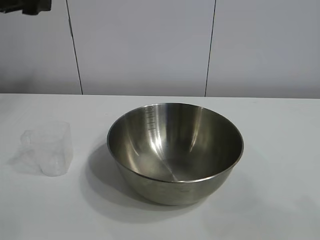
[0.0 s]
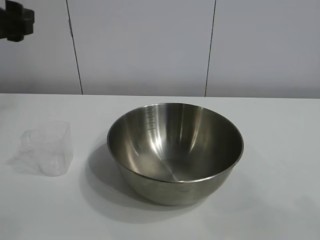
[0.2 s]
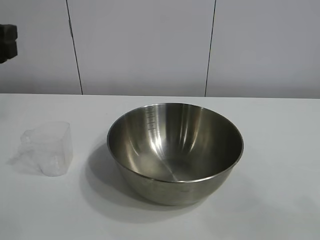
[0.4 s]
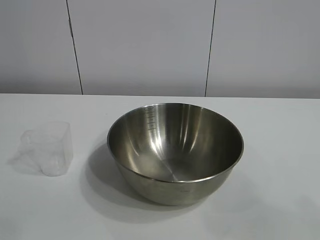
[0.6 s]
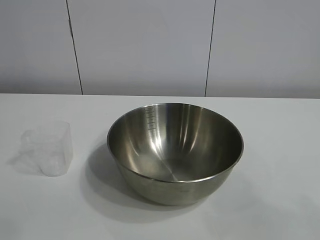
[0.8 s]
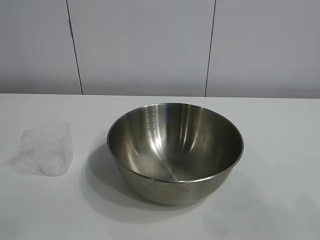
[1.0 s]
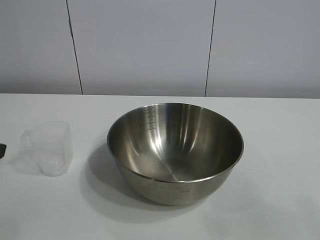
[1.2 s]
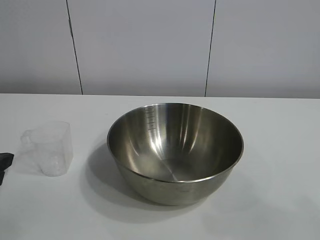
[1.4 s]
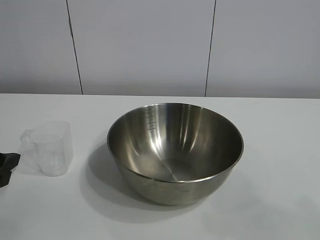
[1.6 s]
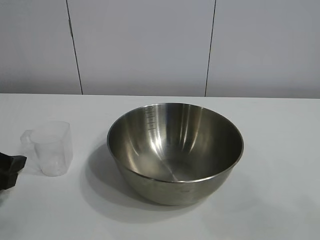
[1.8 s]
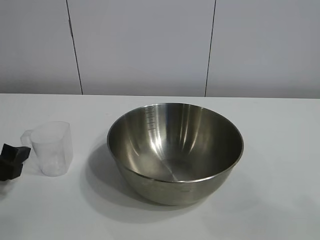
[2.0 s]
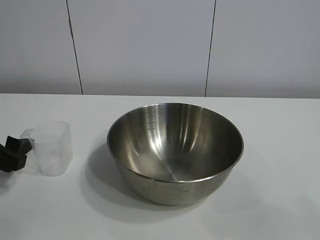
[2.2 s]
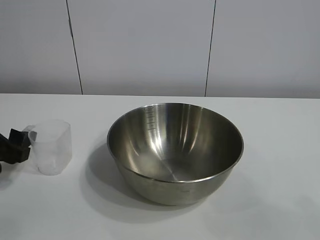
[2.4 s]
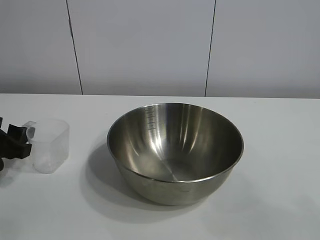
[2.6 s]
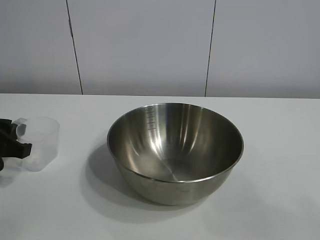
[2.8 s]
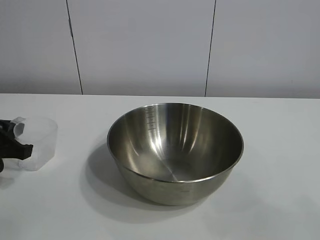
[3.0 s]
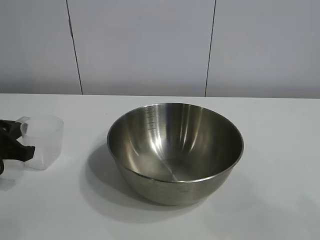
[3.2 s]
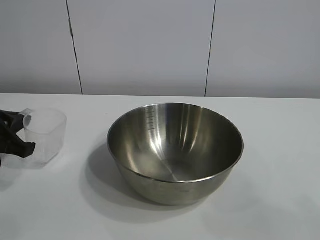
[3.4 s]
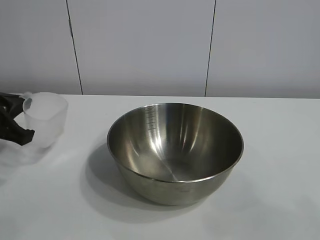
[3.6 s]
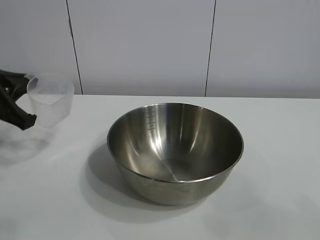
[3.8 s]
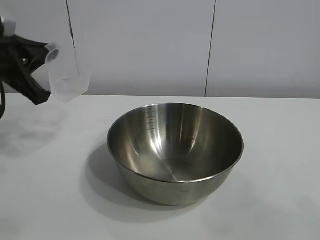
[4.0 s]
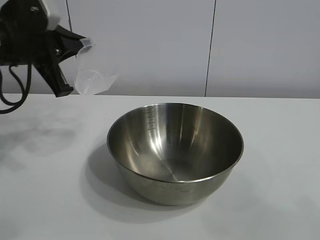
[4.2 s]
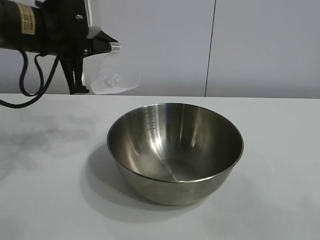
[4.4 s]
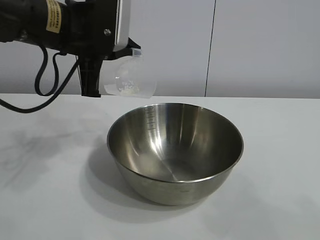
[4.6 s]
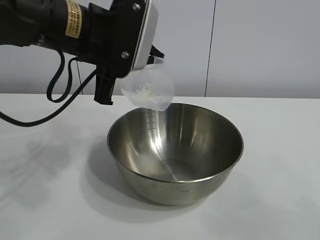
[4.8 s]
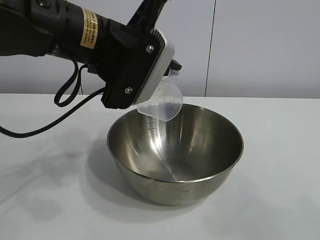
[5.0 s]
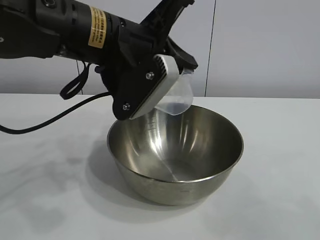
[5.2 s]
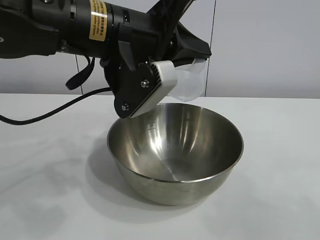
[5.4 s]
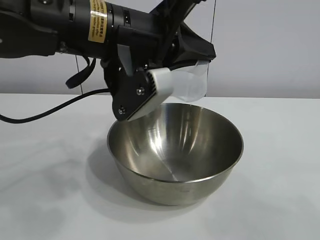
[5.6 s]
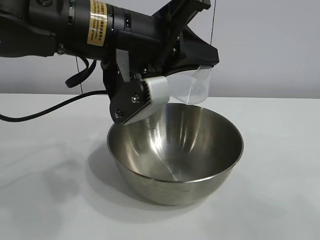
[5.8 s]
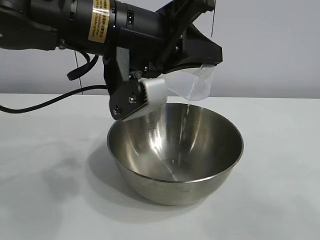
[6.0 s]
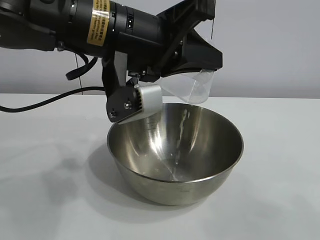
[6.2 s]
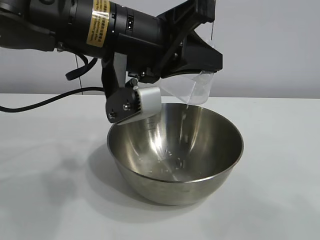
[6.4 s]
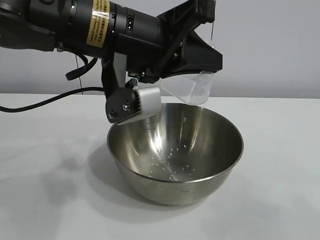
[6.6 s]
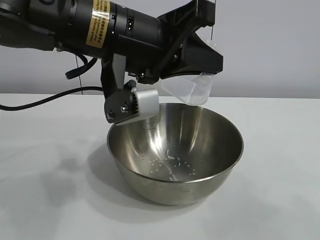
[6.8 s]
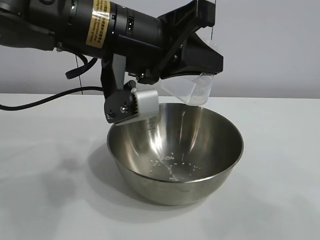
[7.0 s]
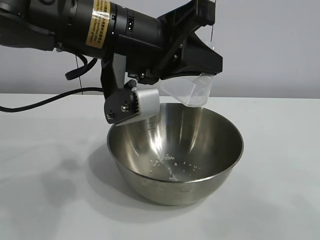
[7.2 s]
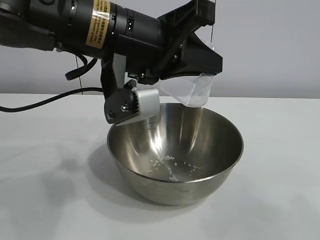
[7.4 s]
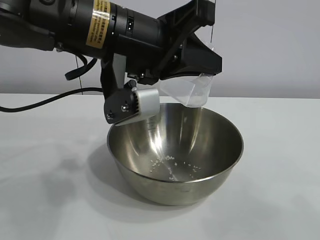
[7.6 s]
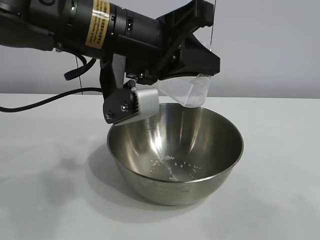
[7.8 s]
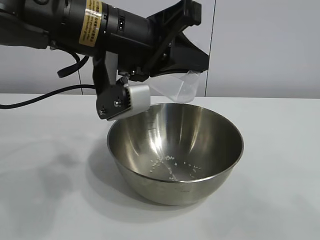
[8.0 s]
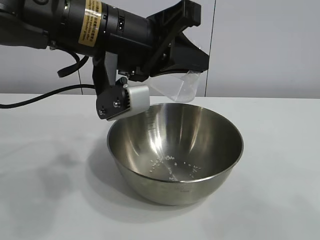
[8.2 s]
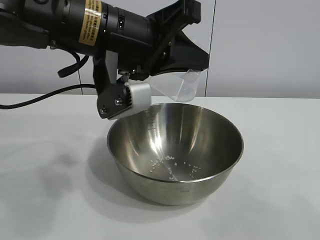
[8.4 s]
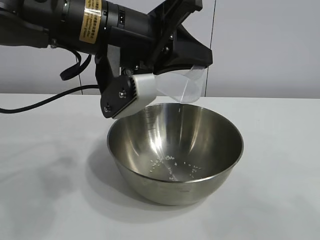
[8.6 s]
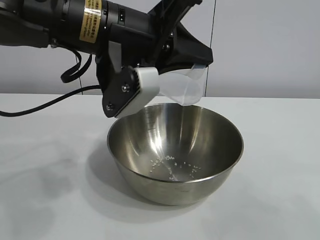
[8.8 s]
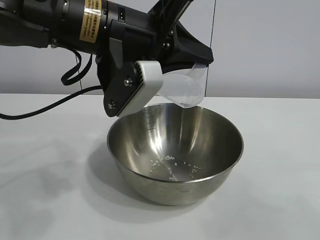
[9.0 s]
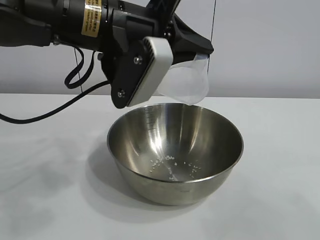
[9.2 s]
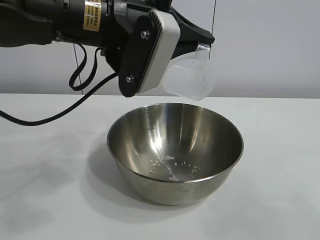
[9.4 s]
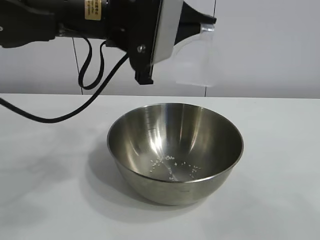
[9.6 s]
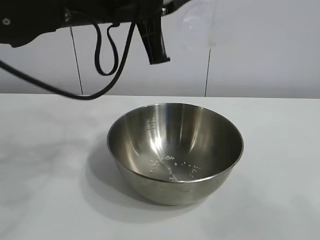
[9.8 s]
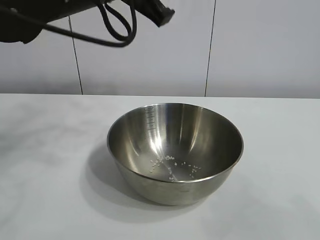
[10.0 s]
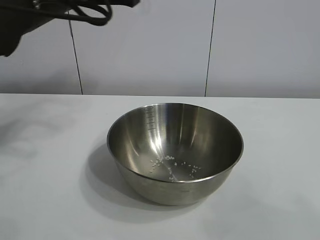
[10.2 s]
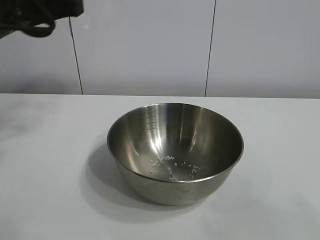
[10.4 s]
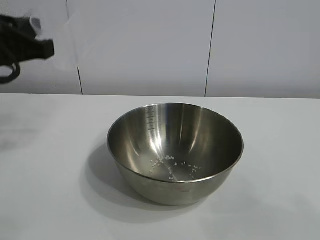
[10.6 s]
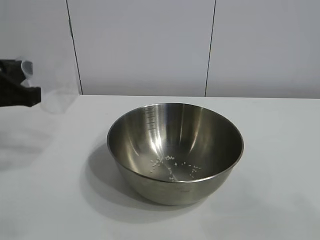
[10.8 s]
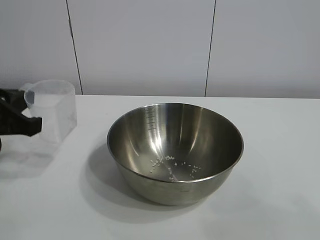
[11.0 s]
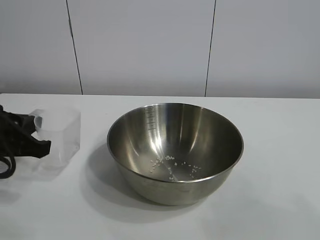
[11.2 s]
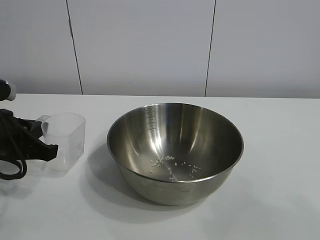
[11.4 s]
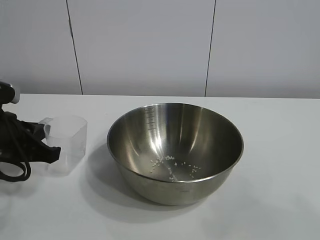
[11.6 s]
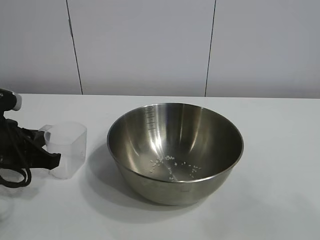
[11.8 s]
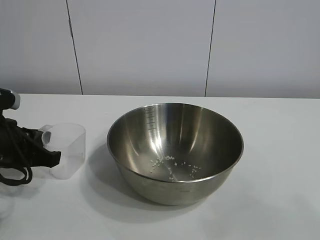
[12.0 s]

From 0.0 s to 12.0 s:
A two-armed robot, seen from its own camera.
Task of the whole recording: the right gripper grasp the rice container and place it in the center of the table, the left gripper grasp the rice scoop and pour the rice into the rice container.
Step, from 0.0 s to 3.0 s: Grasp the cup with rice in it with left gripper.
Step, from 3.2 s to 8.2 s: Pour the rice from the cup into the bowl with the left gripper.
